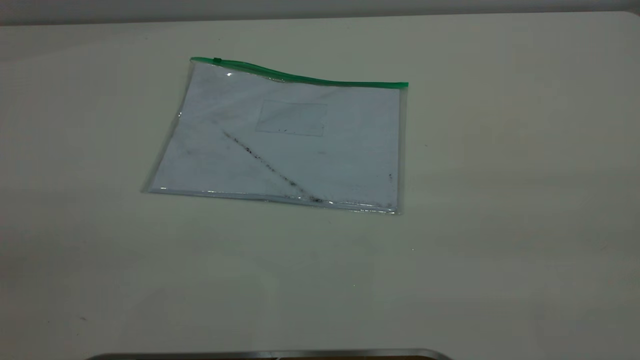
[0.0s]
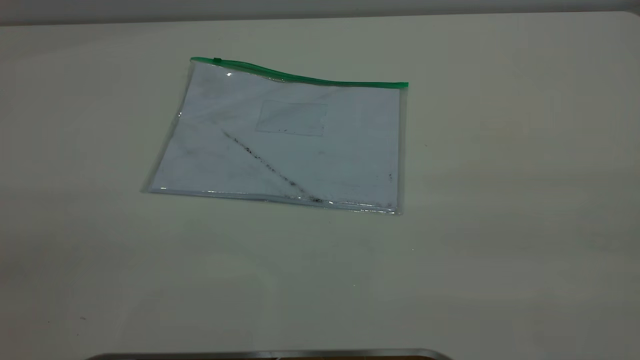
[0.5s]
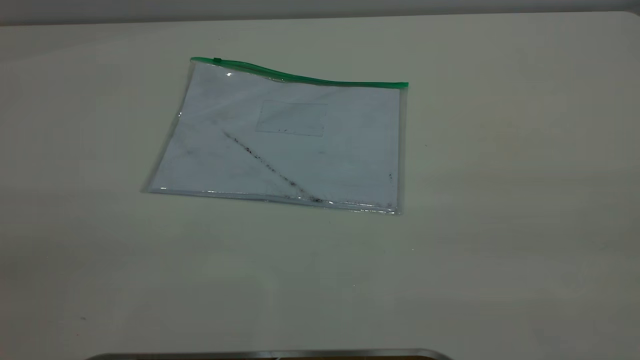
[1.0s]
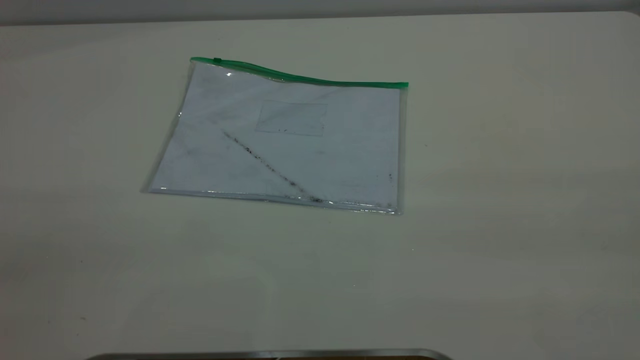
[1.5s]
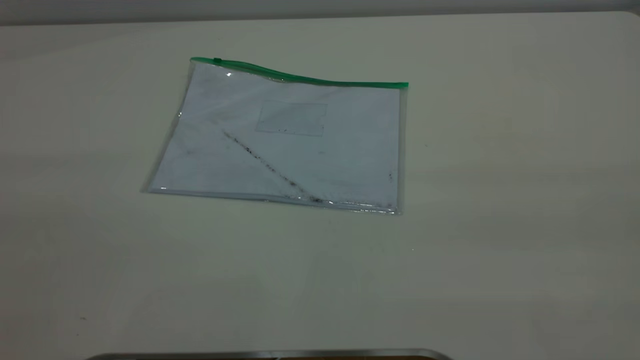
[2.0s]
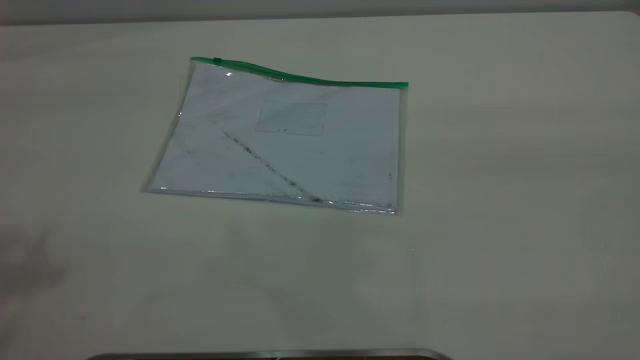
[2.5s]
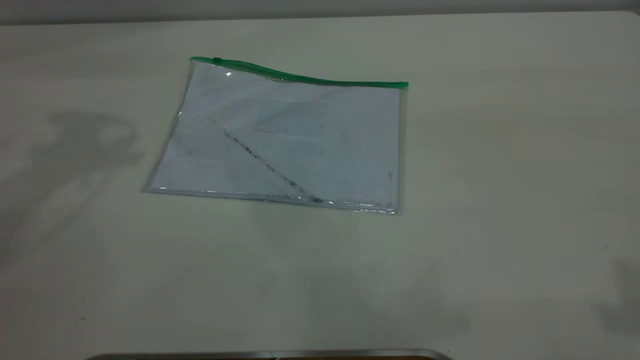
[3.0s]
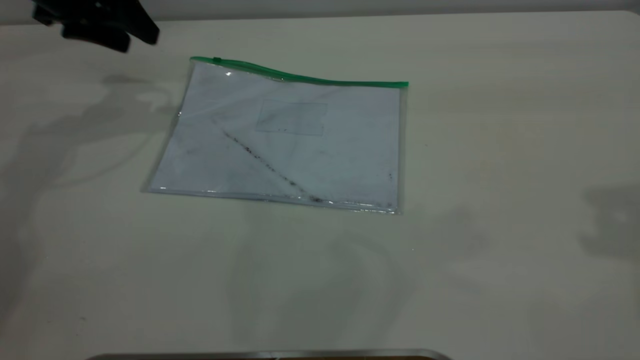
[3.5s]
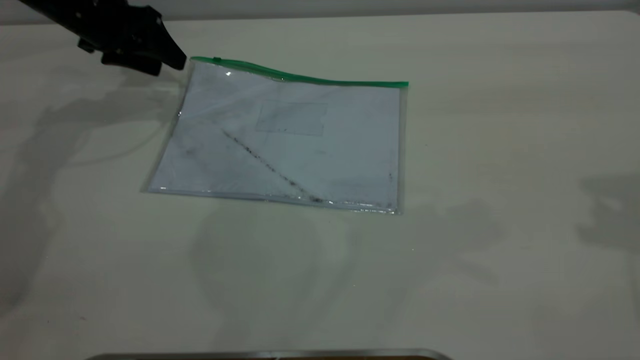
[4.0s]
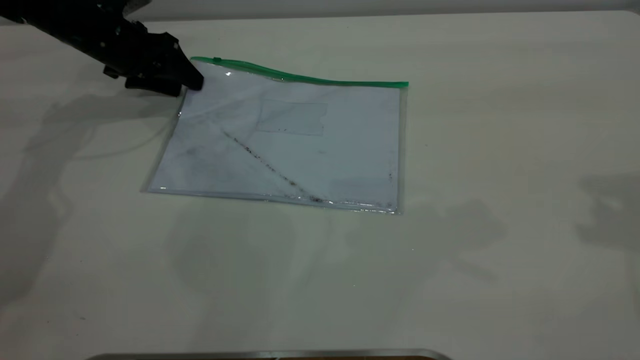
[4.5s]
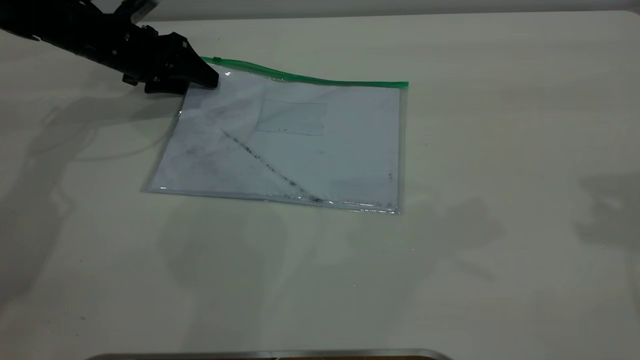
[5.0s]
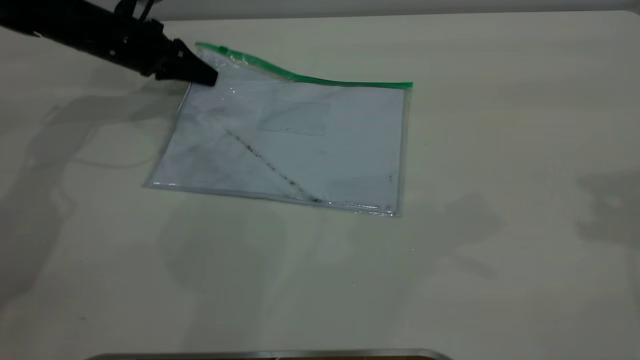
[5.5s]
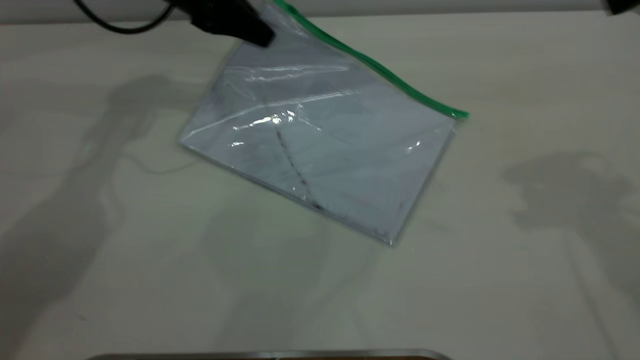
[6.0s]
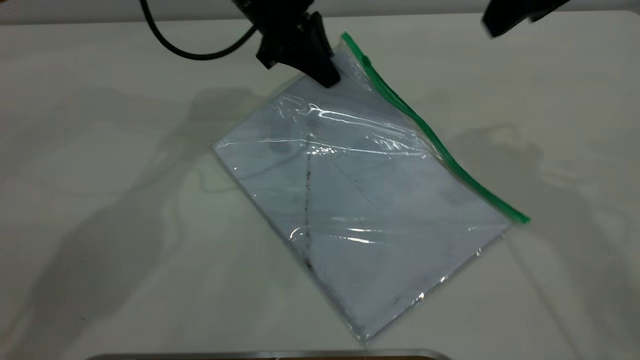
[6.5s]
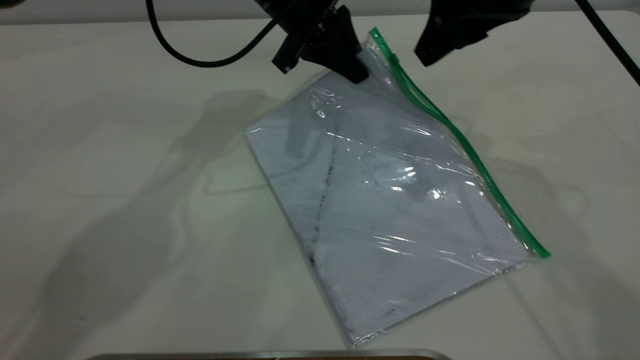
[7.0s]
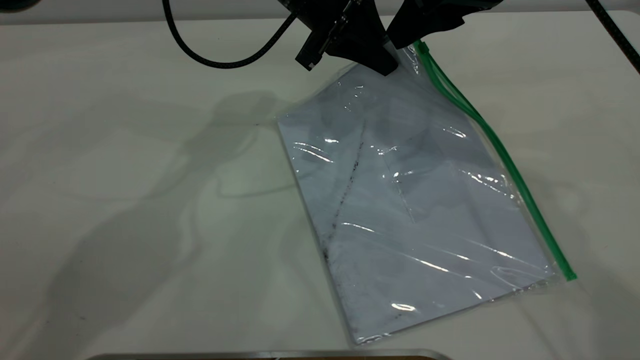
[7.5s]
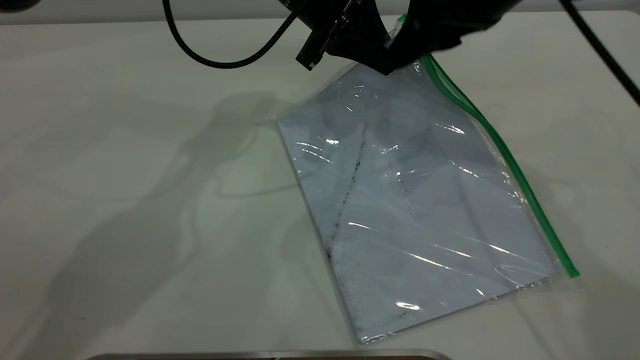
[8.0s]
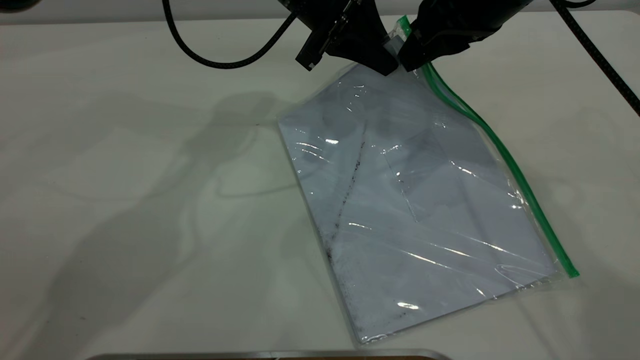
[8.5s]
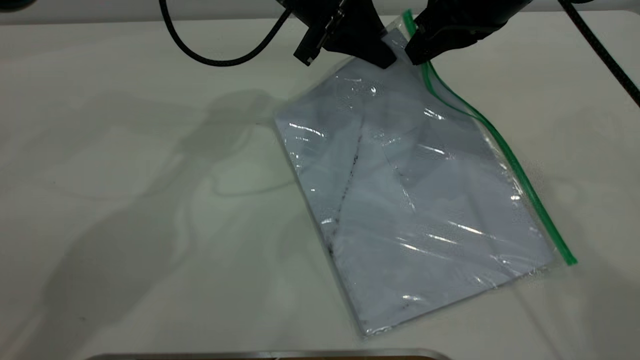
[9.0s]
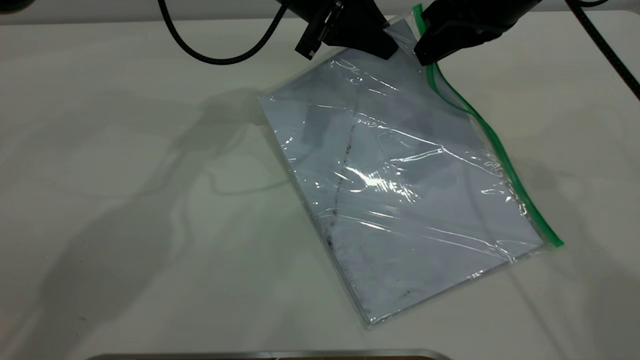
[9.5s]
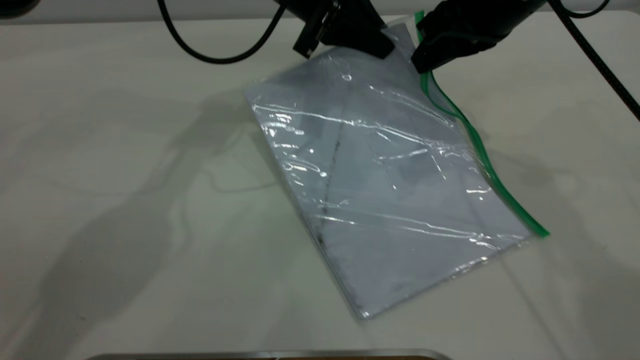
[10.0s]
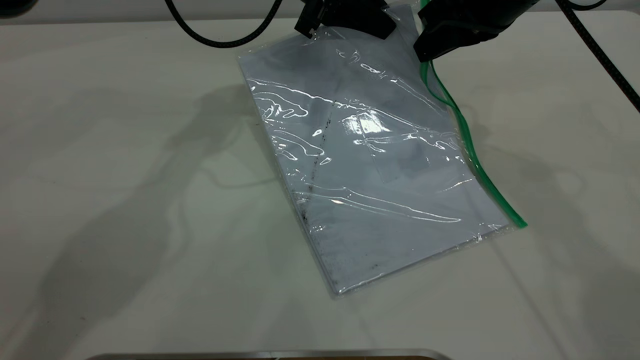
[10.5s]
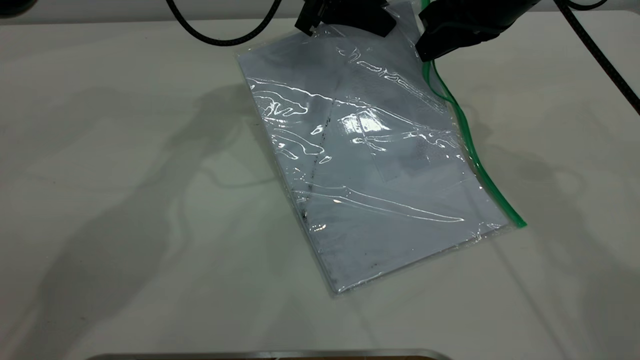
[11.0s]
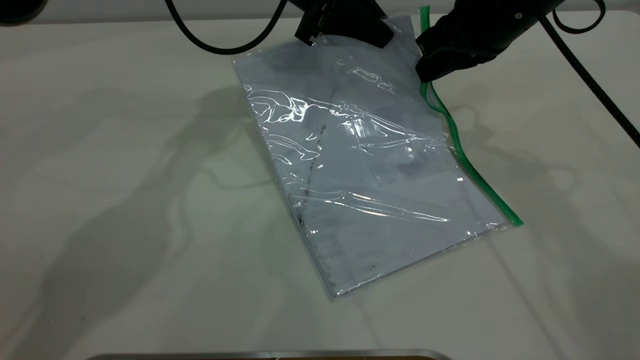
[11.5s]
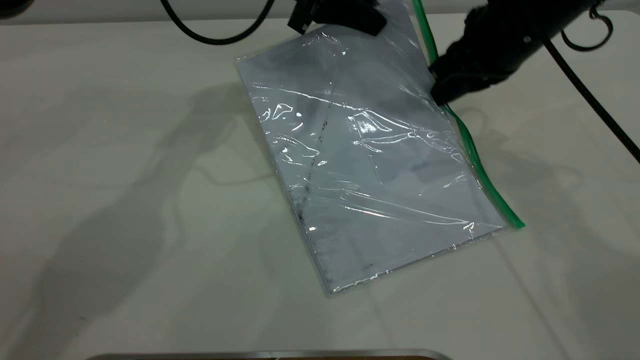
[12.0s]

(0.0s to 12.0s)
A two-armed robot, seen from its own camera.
Step, 0.0s - 5.5s: Pick up the transparent plastic bag with the left gripper.
2.0s - 4.0s: The left gripper goes some 50 cm forward and downward.
4.0s - 6.0s: The right gripper moves to the left, roughly 5 cm, while the left gripper is displaced to the right by some 10 cm, and closes.
6.0s - 8.0s: The right gripper shifts approximately 15 cm to the left, downward and forward. The left gripper is displaced to the right by about 15 cm.
8.0s - 10.0s: The right gripper closes up.
10.0s - 12.0s: The grippers move only a little.

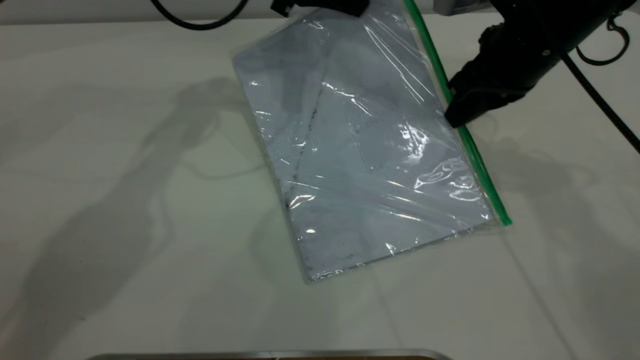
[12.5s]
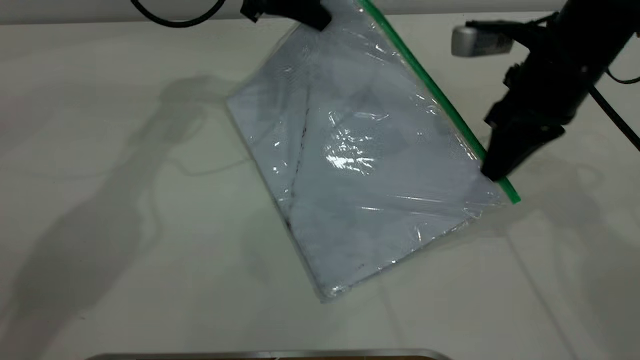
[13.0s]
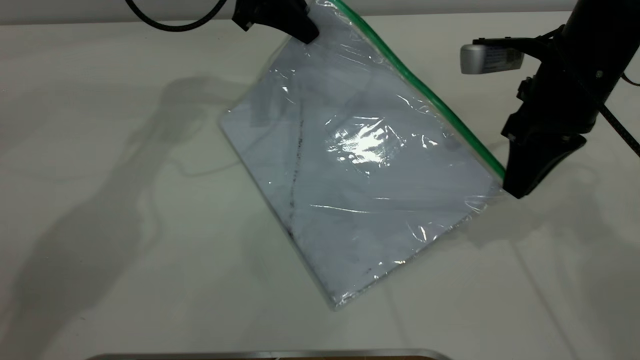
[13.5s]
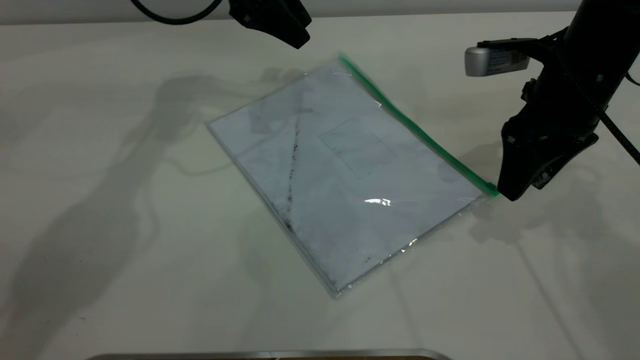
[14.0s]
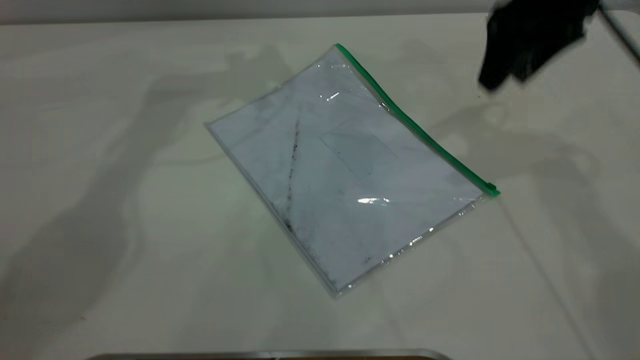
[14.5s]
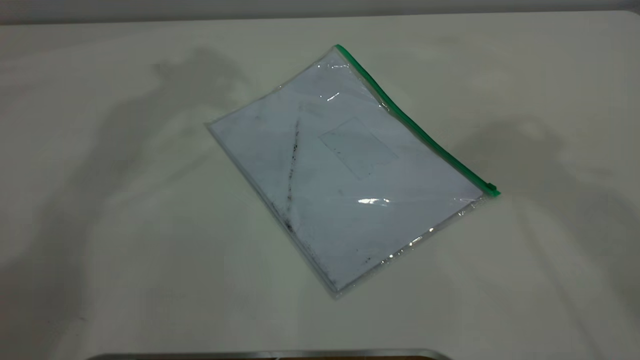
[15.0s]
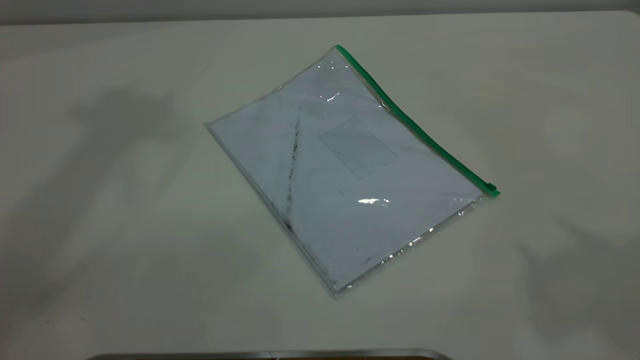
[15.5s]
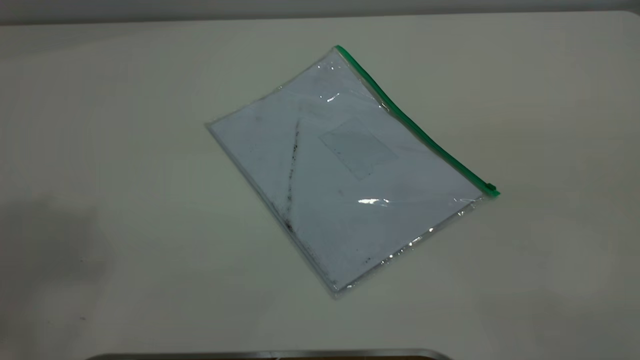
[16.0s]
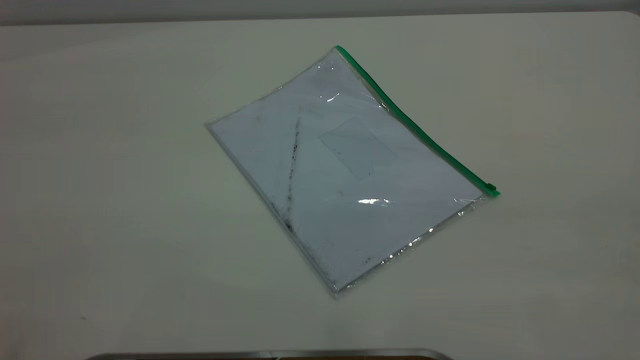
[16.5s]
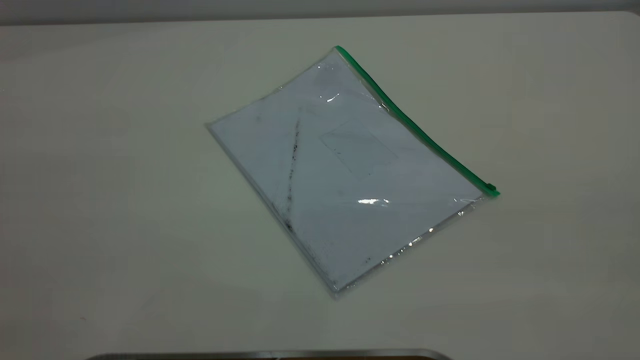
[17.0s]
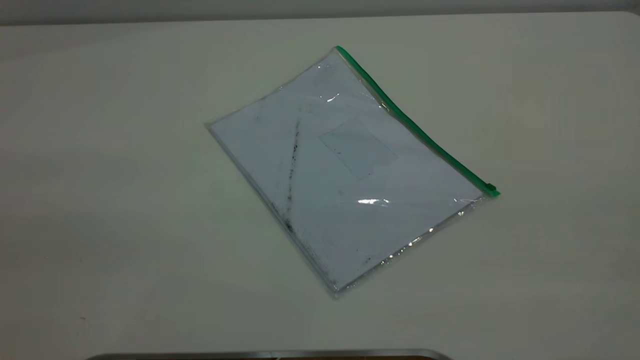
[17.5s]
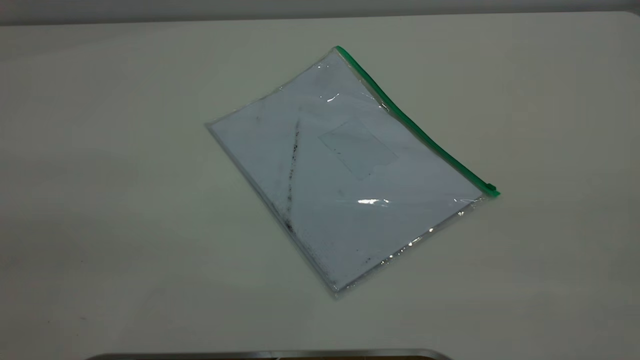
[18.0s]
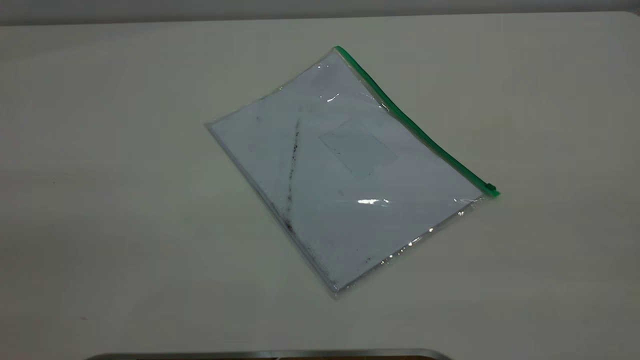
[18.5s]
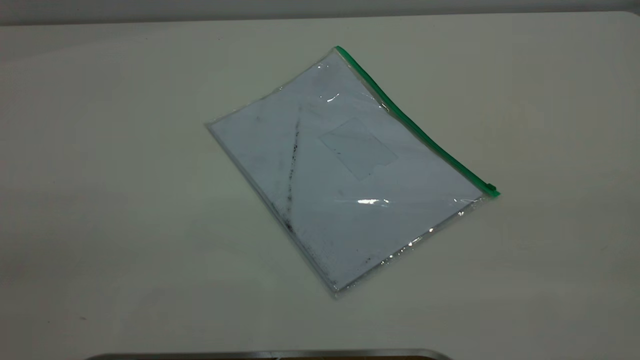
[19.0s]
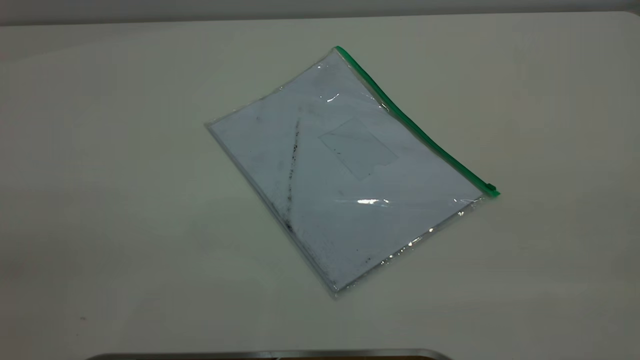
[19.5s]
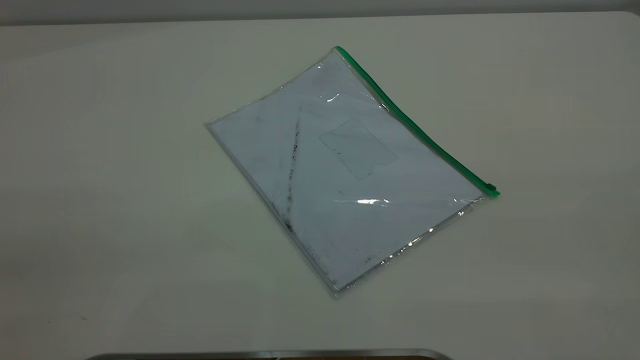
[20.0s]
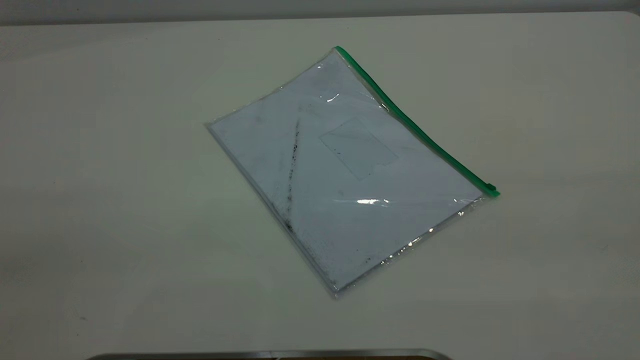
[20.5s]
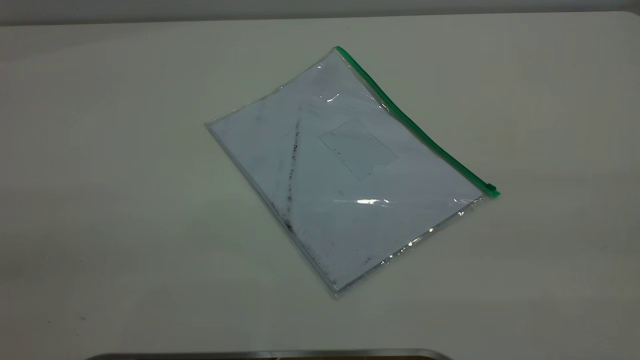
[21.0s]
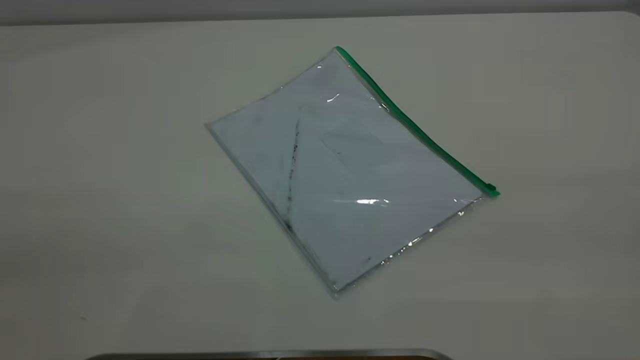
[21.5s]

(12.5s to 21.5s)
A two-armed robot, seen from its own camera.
12.5s - 14.5s: The right gripper moves upward, roughly 10 cm, and opens. The left gripper moves upward and to the left, approximately 10 cm, and opens up.
14.5s - 17.0s: The right gripper goes some 40 cm backward.
